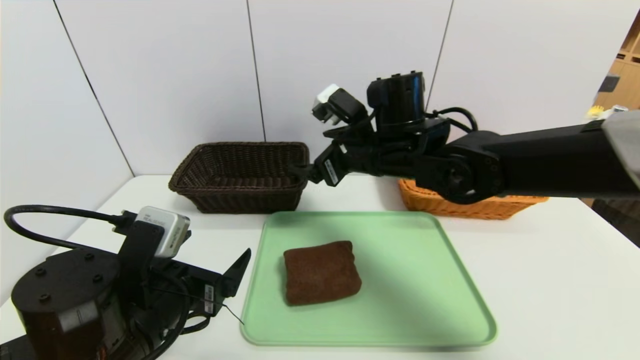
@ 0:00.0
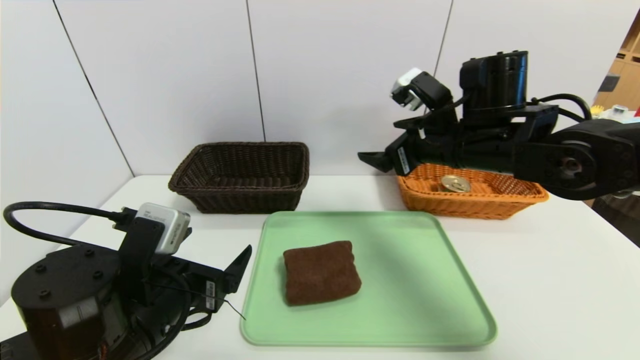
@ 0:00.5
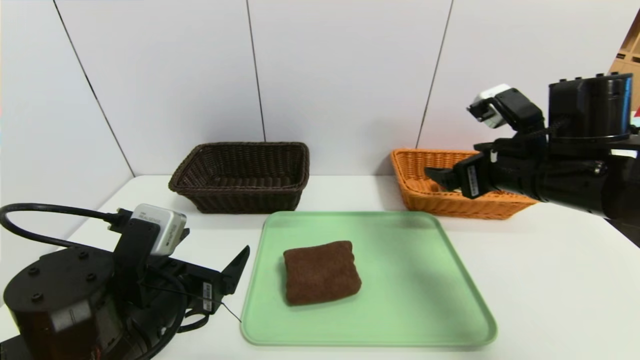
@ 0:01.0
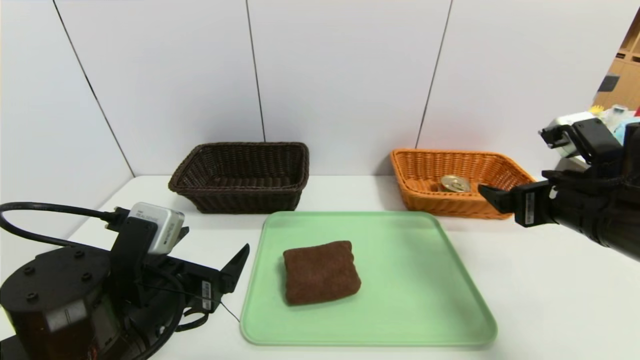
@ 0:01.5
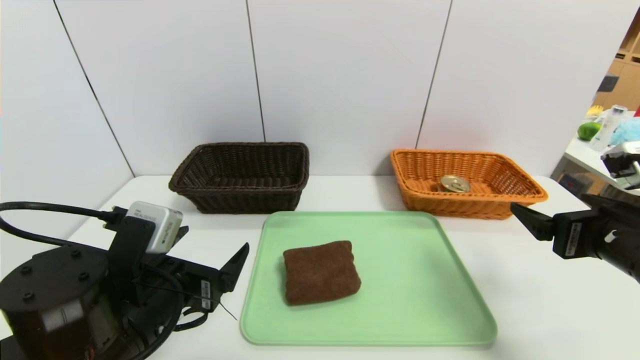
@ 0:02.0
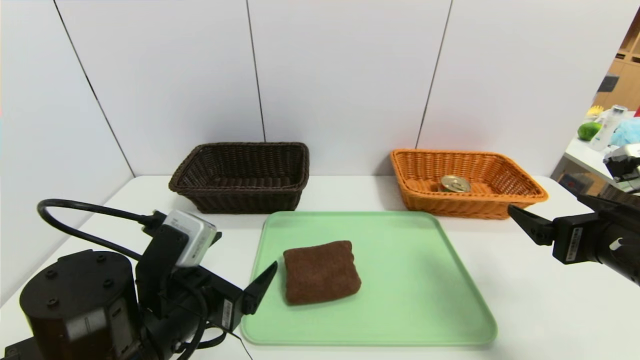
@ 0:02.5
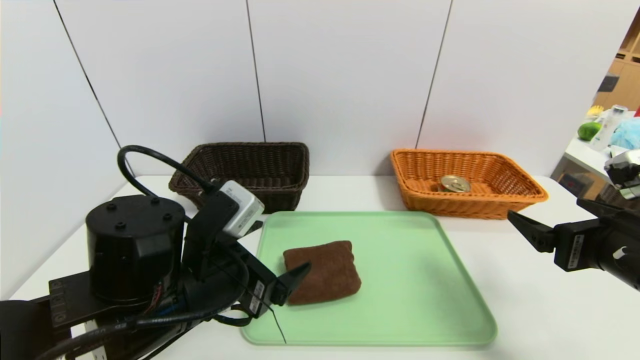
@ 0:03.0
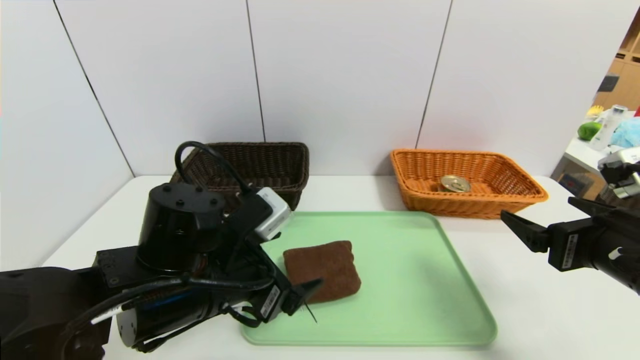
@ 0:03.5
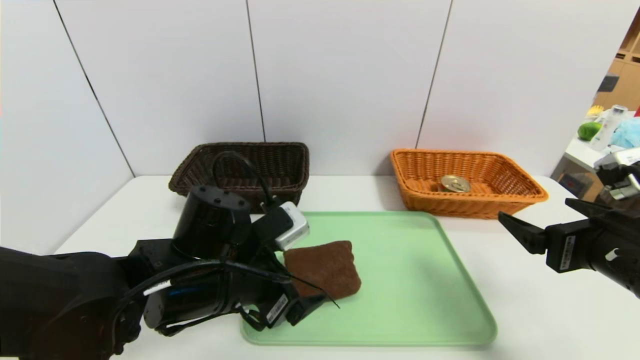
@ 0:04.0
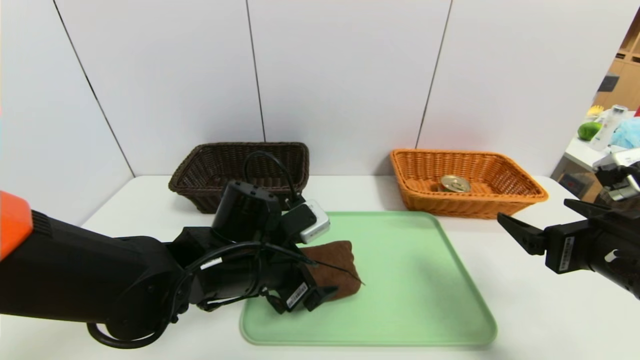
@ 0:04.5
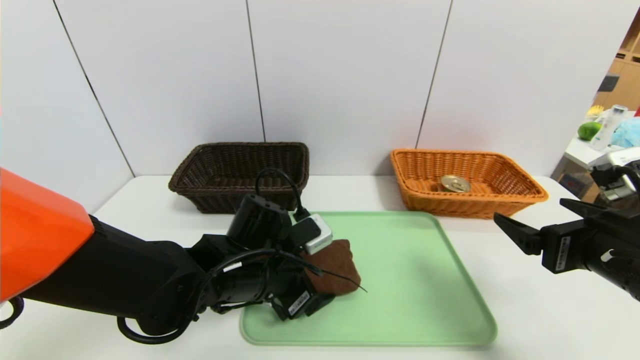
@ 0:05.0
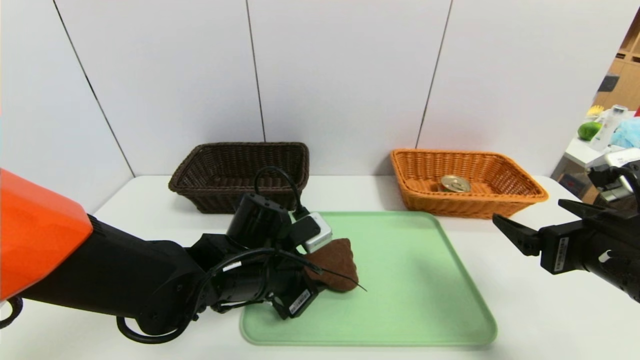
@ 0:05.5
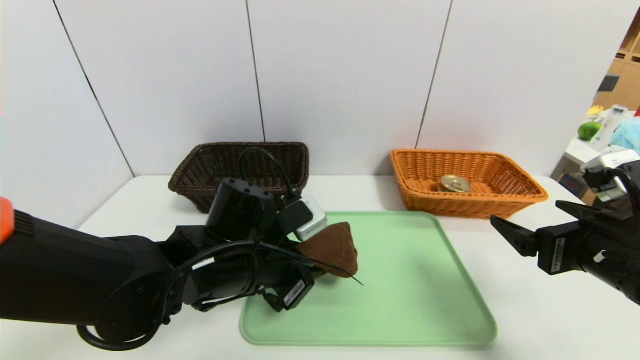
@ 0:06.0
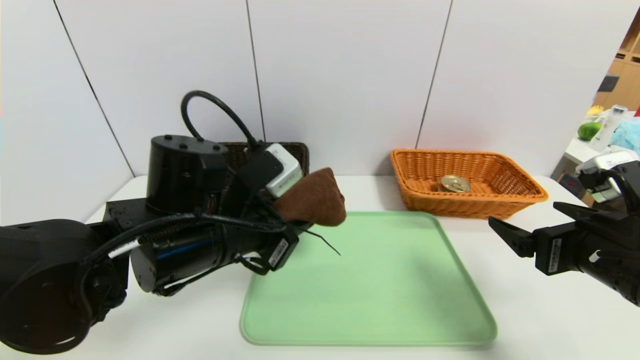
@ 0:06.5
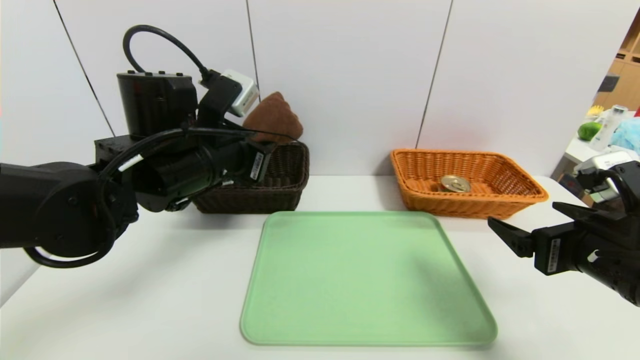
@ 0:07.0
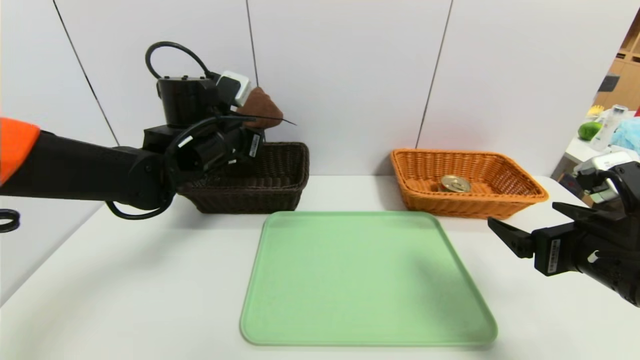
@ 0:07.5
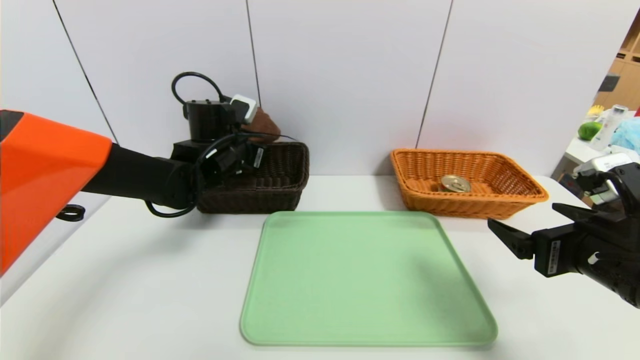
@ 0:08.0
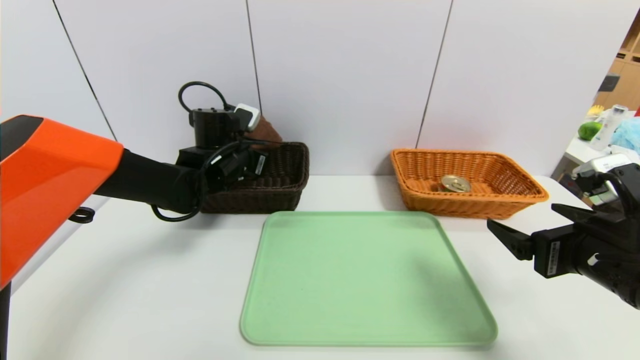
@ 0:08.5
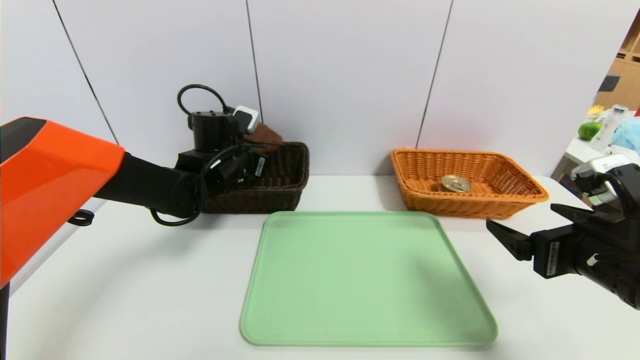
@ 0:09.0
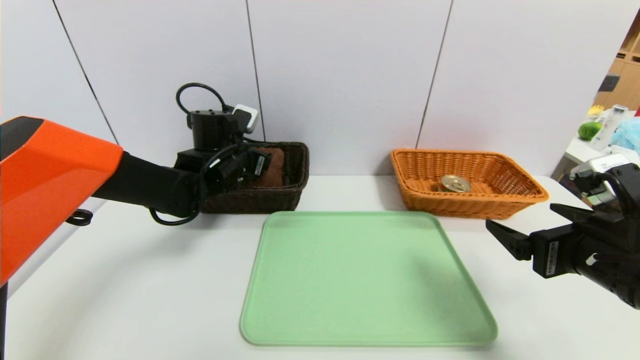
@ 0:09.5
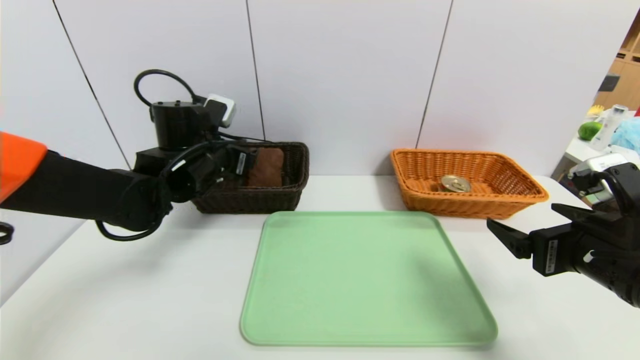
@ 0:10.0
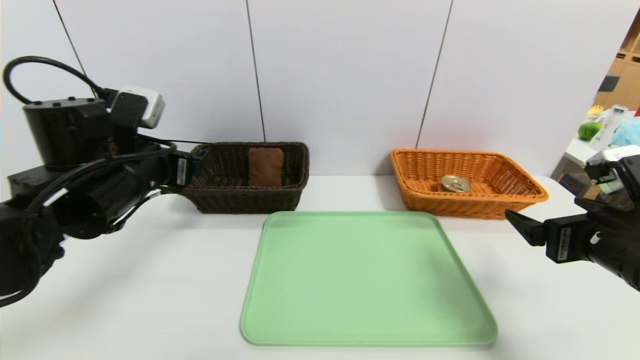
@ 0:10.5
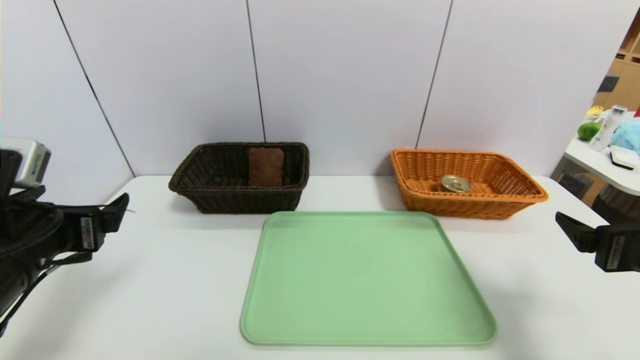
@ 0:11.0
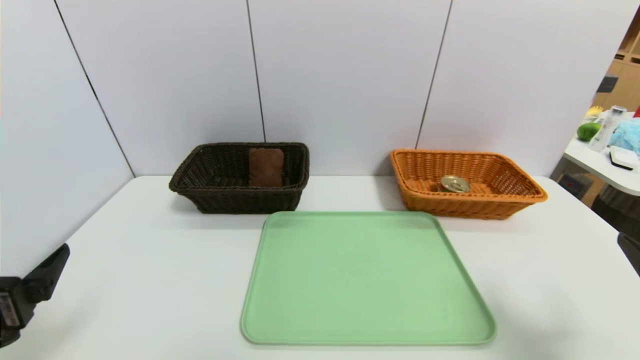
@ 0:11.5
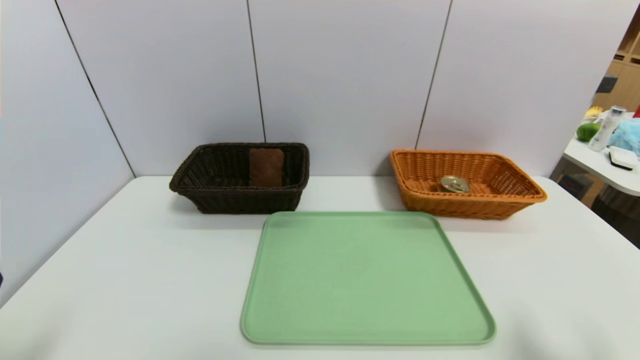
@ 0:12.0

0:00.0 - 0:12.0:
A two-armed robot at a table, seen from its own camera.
Task of the whole recording: place the food in the right basket with the right gripper, and place the non food items in the left basket with the left gripper.
Step, 0:00.0 - 0:09.5: Grasp the brown towel and put it in the left basket.
0:00.0 - 0:02.0: The right gripper goes some 30 cm to the right and backward.
0:02.0 - 0:04.0: The left gripper heads to the right and forward, covering roughly 10 cm.
0:04.0 - 0:06.0: The left gripper closes up.
0:06.0 - 0:08.0: The left gripper travels forward by approximately 15 cm.
0:08.0 - 0:10.0: The left gripper shifts roughly 5 cm backward, and opens.
0:10.0 - 0:12.0: The right gripper shifts roughly 15 cm backward and to the right; the left gripper is displaced backward by approximately 30 cm.
